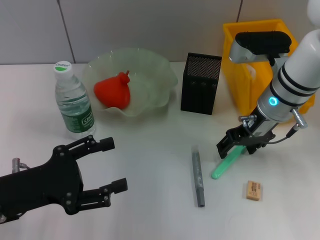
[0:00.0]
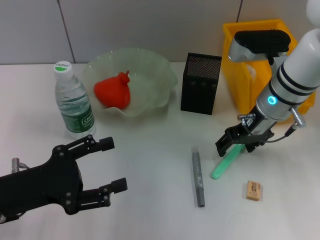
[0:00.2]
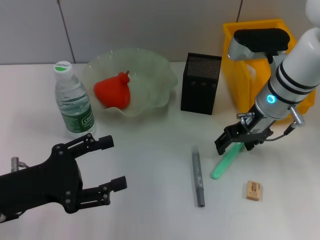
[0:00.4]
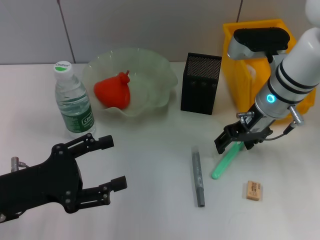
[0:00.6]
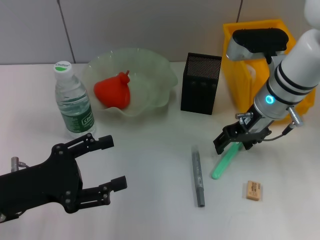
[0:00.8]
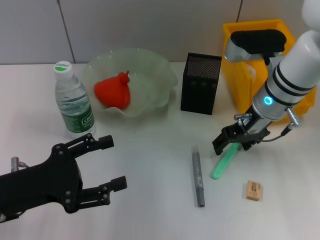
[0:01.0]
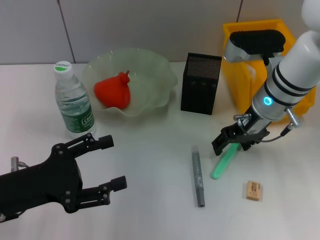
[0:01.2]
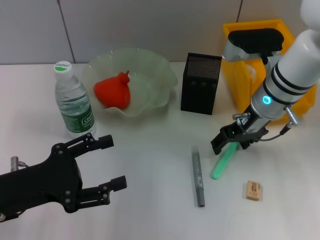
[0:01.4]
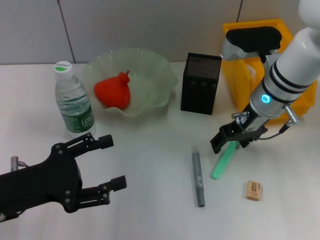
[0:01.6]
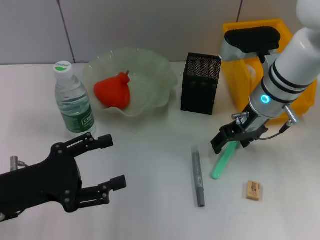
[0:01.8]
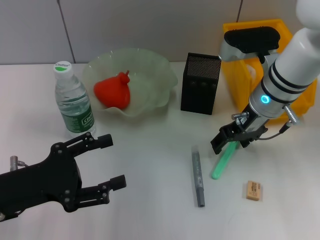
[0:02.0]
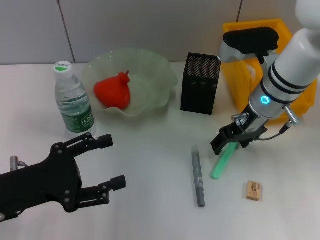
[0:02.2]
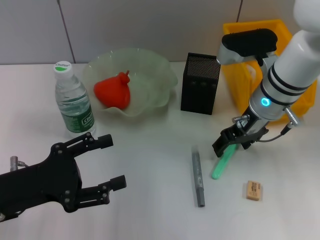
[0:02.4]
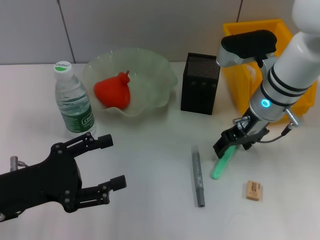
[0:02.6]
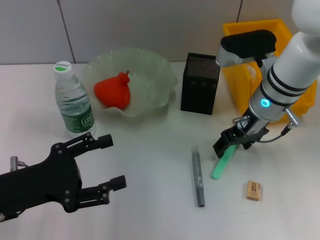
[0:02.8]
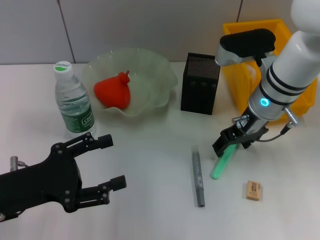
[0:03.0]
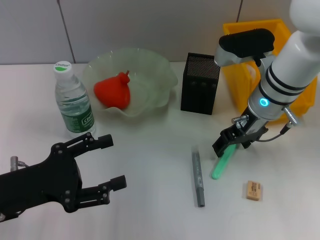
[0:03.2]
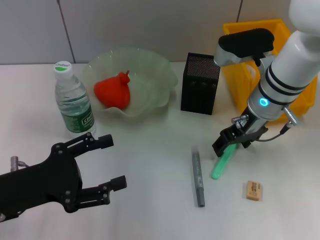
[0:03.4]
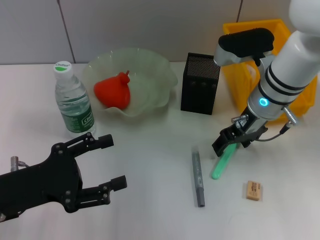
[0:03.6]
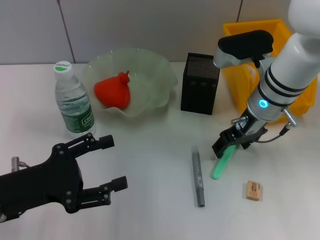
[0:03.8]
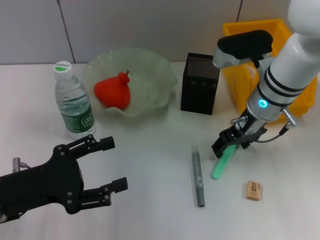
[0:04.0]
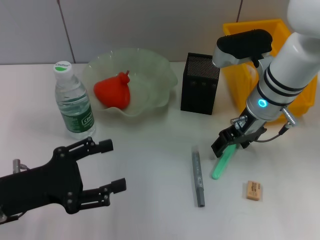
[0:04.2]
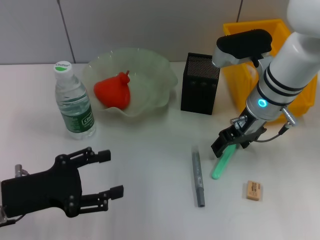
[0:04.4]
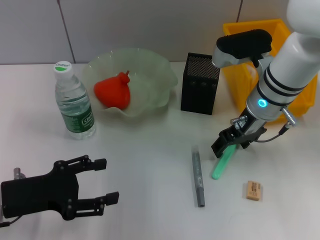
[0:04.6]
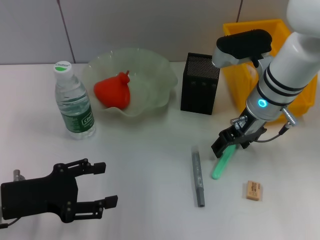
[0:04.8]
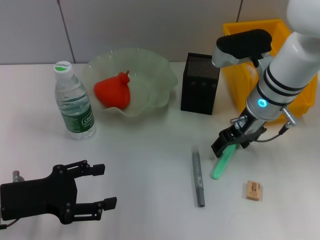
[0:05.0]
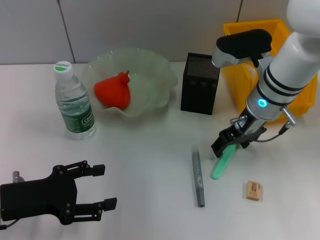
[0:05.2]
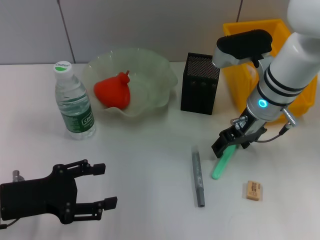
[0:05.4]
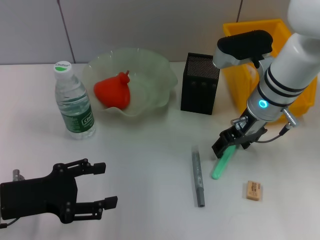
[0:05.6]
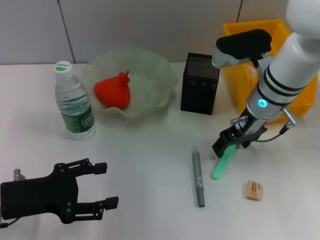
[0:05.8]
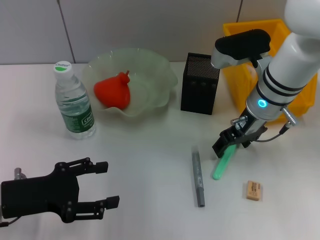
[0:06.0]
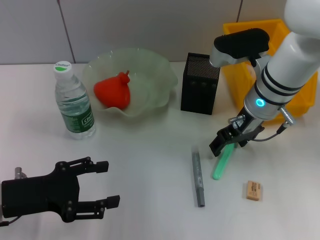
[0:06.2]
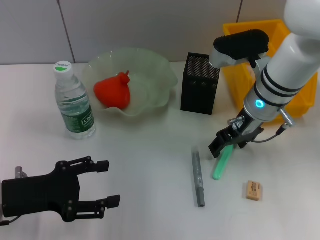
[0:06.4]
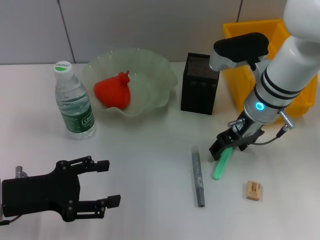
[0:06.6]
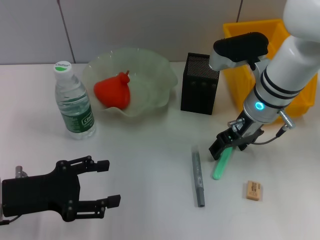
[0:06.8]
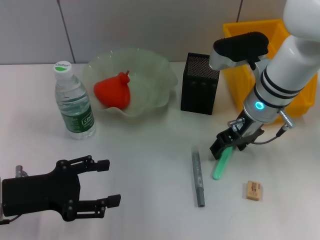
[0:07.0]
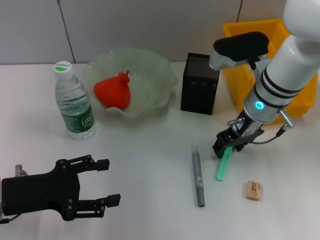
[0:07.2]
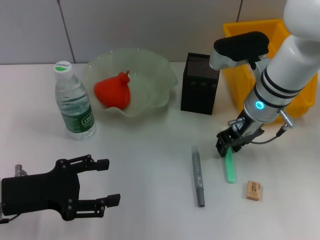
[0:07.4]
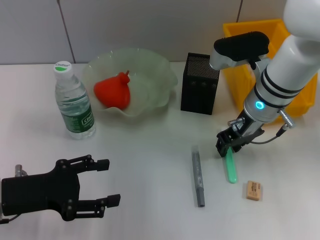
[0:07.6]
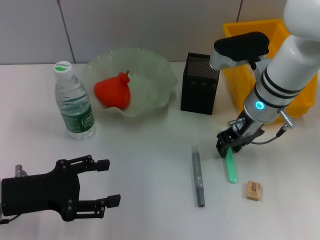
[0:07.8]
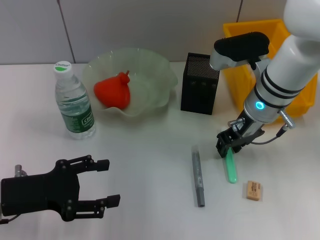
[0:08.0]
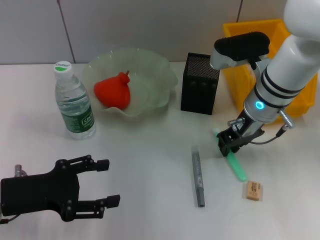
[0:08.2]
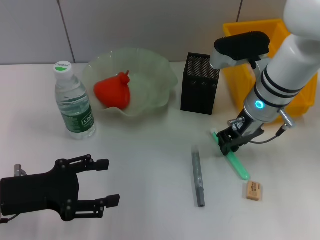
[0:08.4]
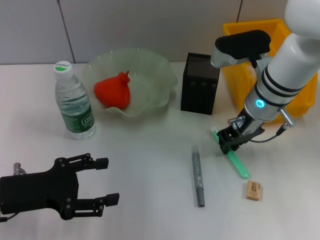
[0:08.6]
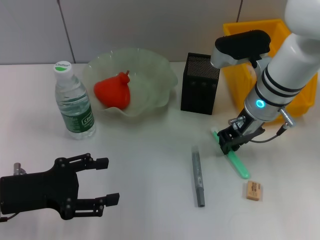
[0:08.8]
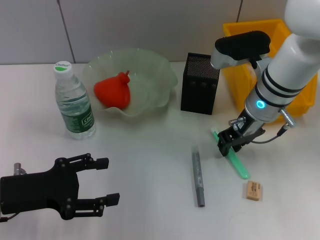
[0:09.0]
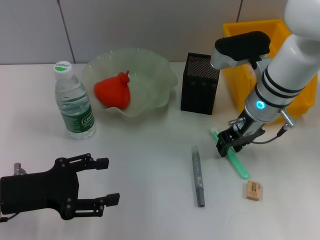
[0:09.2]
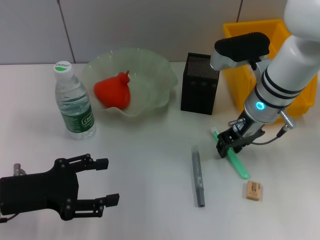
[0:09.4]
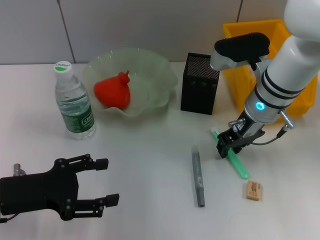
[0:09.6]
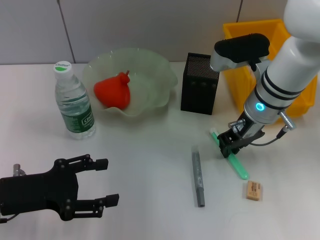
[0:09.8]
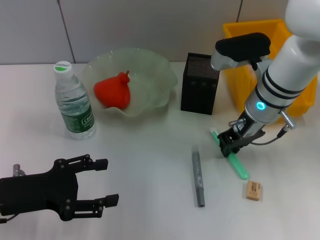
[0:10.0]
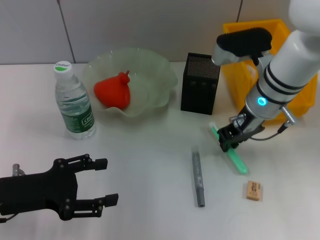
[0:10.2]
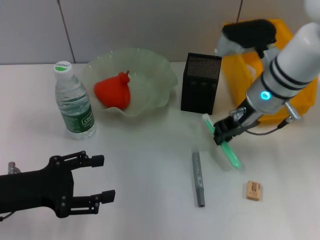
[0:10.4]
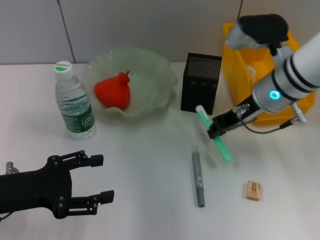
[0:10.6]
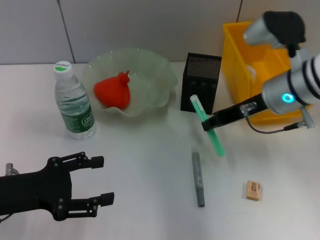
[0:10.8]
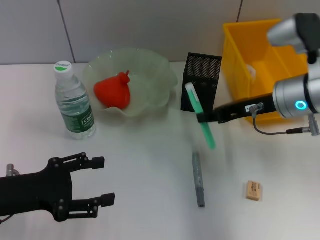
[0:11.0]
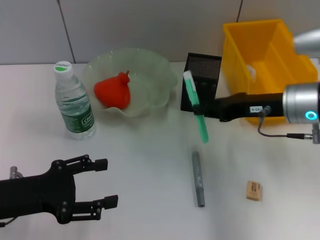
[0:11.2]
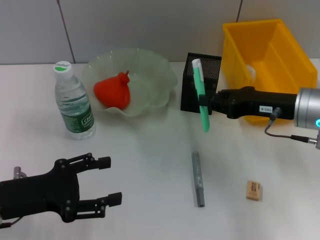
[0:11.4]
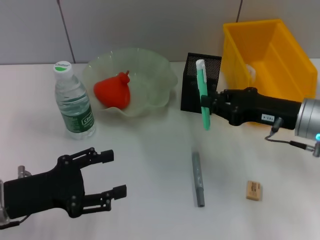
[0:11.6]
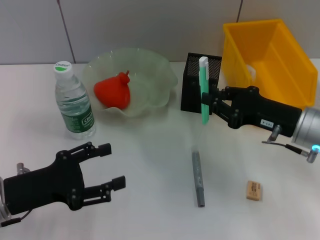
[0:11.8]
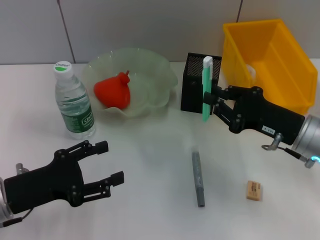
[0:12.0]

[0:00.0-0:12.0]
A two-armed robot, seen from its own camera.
Step, 0:00.0 to 0:08.2: Grab the blue utility knife with the right hand.
0:00.0 to 0:01.6: Both grippers stay put.
0:01.6 to 0:03.0: Both grippers stay put.
0:03.0 to 0:04.4: The grippers move only a little.
0:04.4 to 0:06.0: The grippers make only small movements.
0:06.0 to 0:07.6: The right gripper closes its fingers.
0:07.6 to 0:09.0: Neither gripper changes place.
0:09.0 to 0:10.4: The grippers stay close to where they were, moving slightly.
0:10.4 to 0:12.0: The right gripper travels backward, to the right and downward by roughly 15 cm.

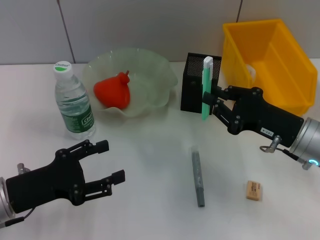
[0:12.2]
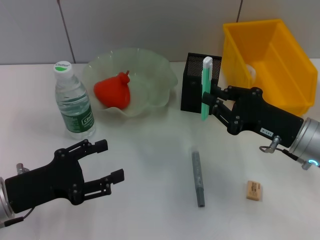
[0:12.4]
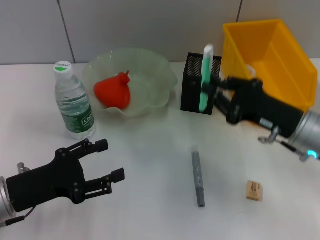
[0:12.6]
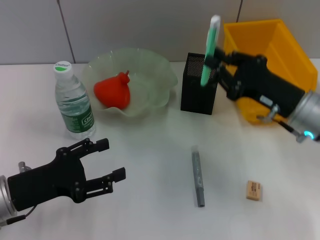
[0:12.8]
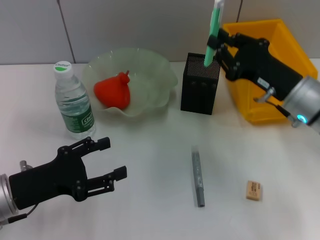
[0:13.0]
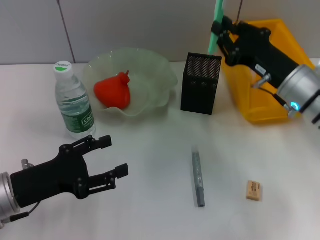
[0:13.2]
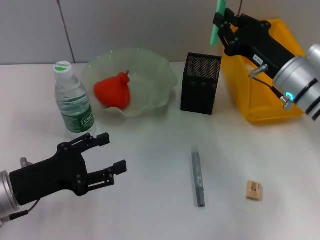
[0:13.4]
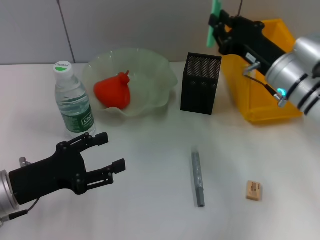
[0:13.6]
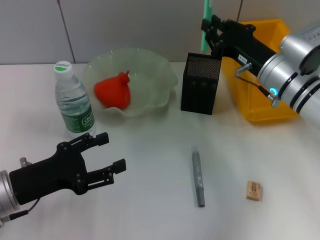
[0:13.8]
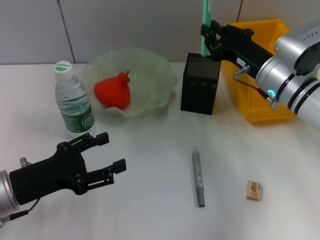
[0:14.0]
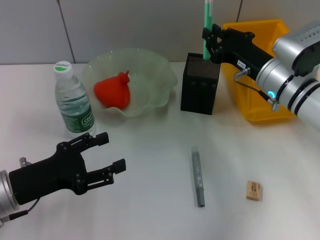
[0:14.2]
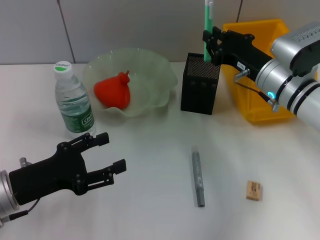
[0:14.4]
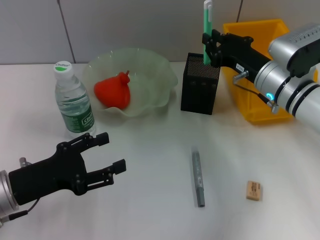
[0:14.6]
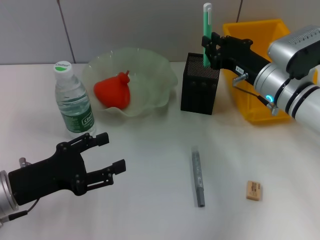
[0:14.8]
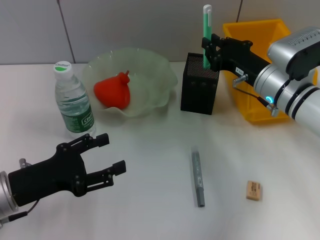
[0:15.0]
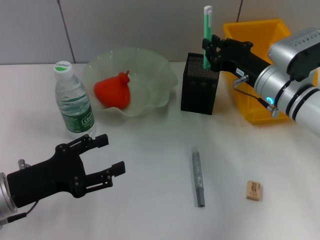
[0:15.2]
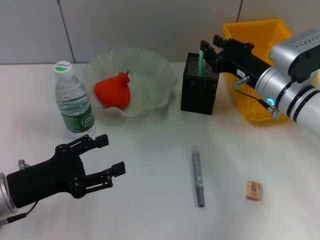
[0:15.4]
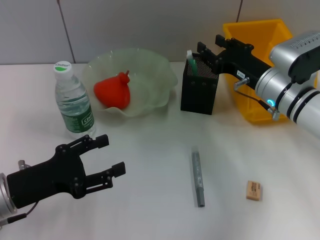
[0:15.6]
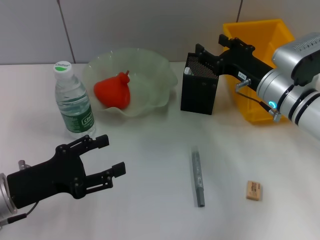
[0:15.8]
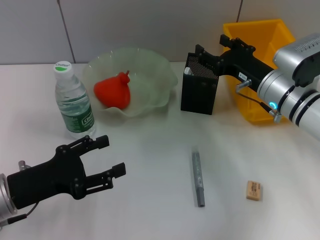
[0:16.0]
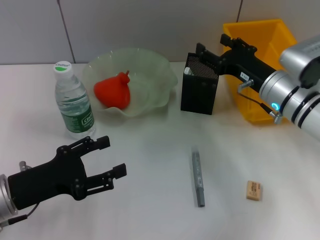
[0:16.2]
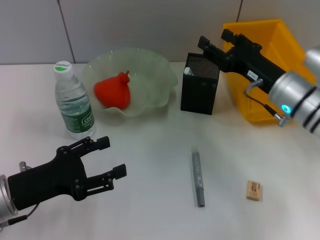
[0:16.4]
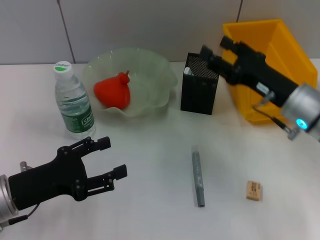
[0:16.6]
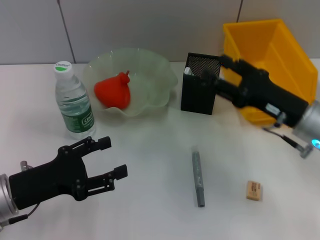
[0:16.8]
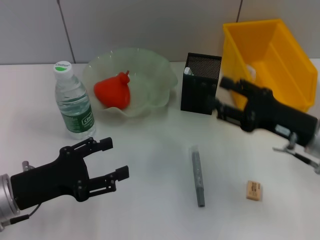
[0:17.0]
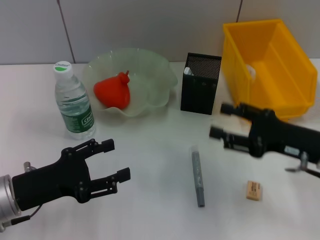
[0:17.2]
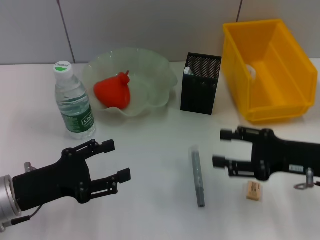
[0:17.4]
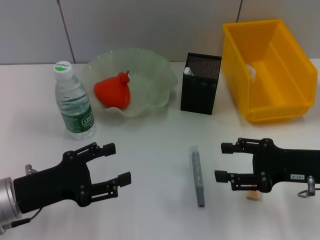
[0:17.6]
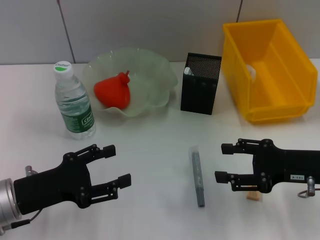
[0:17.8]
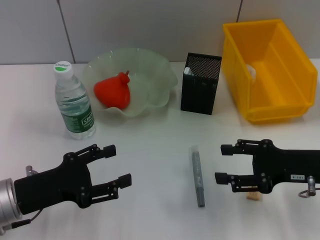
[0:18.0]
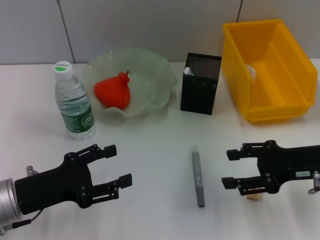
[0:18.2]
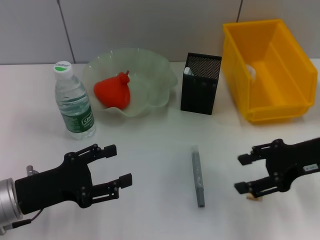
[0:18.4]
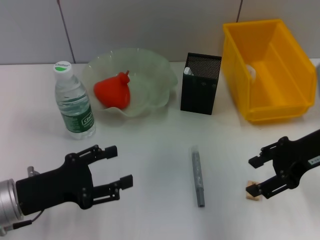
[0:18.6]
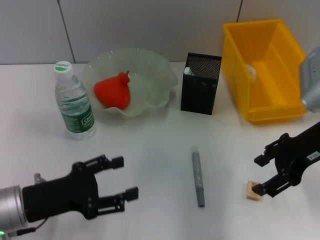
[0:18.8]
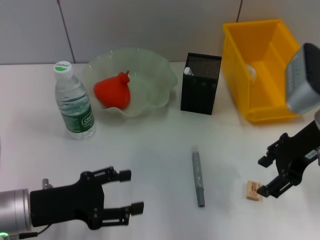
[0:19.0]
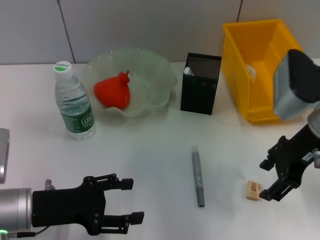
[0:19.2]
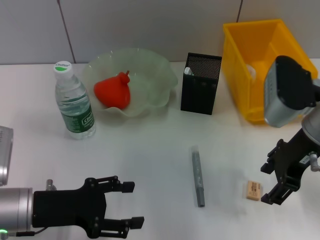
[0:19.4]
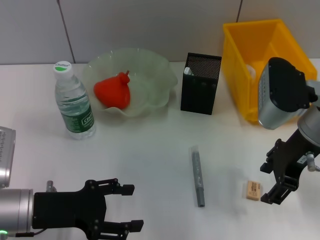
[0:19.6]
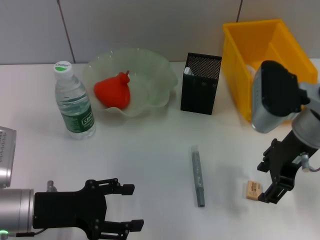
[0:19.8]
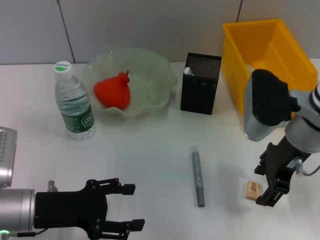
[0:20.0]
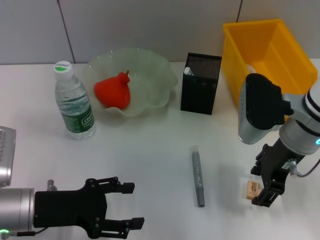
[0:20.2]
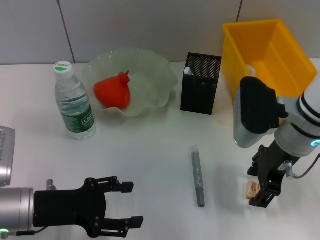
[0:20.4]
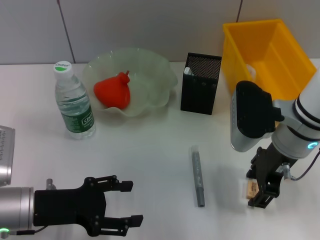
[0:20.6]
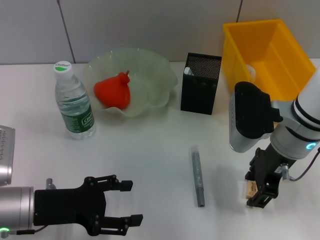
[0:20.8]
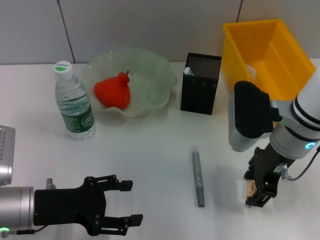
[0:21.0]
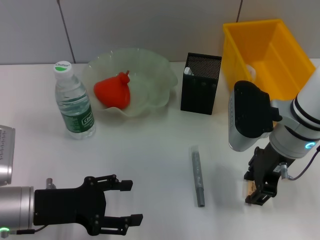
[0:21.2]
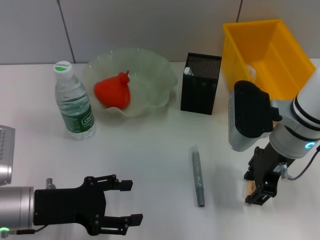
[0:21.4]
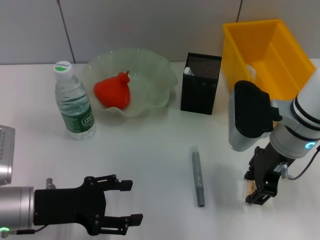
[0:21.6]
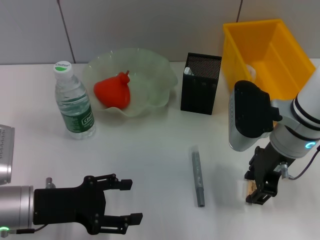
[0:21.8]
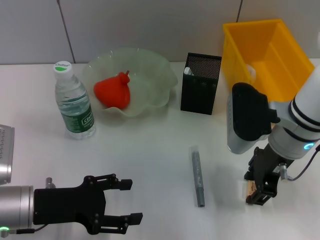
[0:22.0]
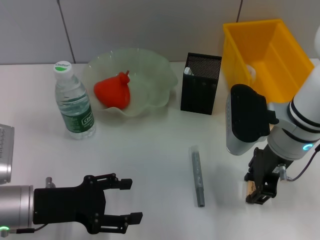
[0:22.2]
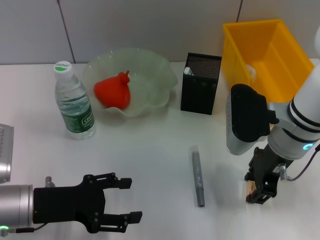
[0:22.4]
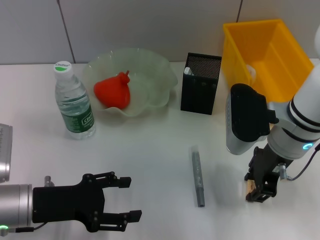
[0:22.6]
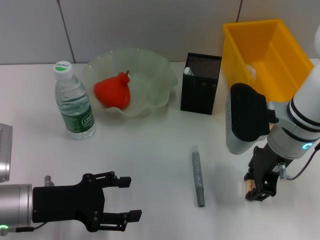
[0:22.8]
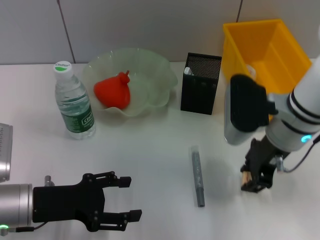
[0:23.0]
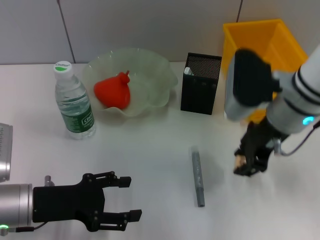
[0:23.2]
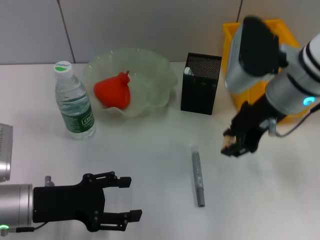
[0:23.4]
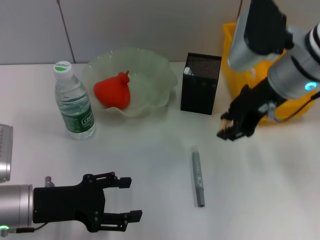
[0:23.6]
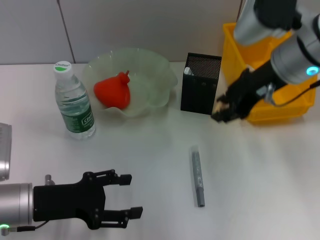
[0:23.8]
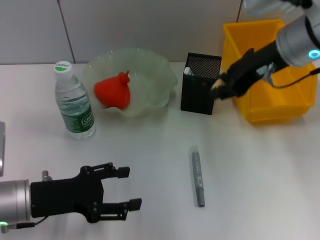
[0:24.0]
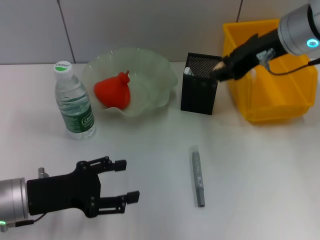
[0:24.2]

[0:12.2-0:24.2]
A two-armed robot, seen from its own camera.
Step, 0:12.2 to 0:16.0: Place the blue utility knife into the pen holder with the right hand.
Step, 0:16.4 to 0:22.6: Grab the eraser with the right hand.
0:12.2 to 0:13.8: The right gripper travels forward by roughly 10 cm.
0:13.8 to 0:15.2: The grippers make only small movements.
0:15.2 to 0:16.6: The right gripper travels backward by about 5 cm, and opens up.
0:16.6 to 0:18.2: The right gripper heads to the right and backward, covering approximately 5 cm.
0:18.2 to 0:19.8: The right gripper moves to the left and upward, some 10 cm.
0:19.8 to 0:21.2: The grippers make only small movements.
0:21.2 to 0:22.6: The two grippers keep their place.
0:22.6 to 0:24.2: The right gripper moves upward and forward, roughly 10 cm.
